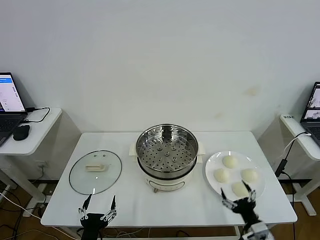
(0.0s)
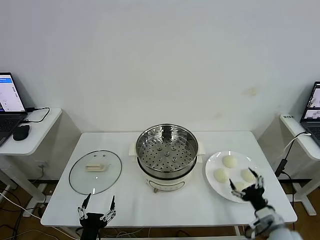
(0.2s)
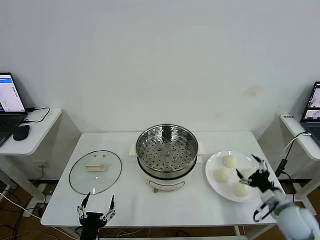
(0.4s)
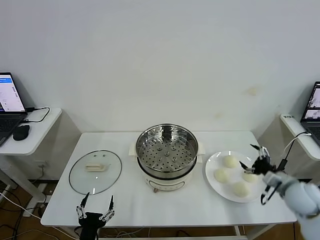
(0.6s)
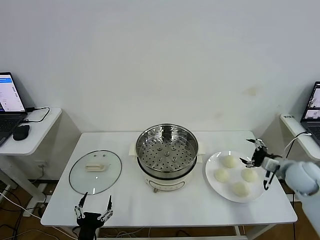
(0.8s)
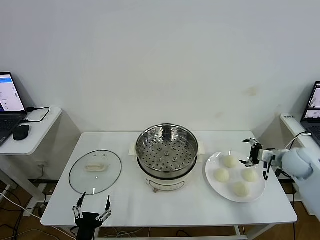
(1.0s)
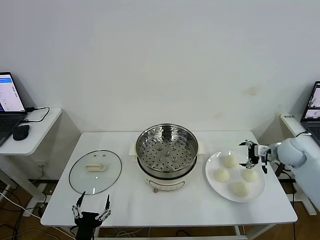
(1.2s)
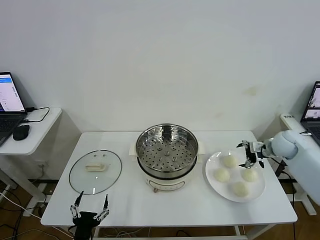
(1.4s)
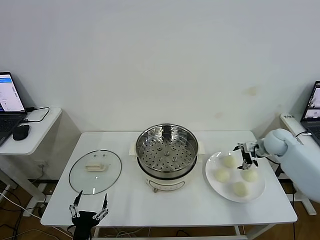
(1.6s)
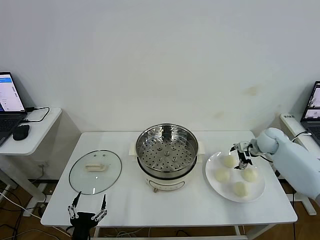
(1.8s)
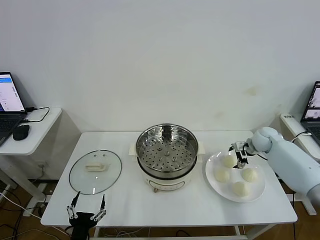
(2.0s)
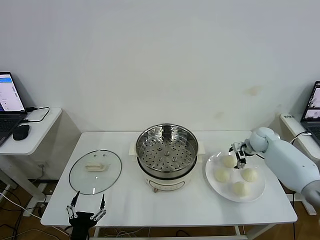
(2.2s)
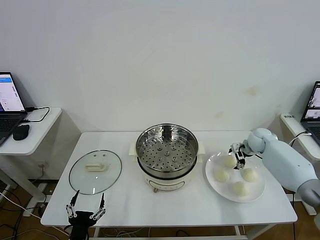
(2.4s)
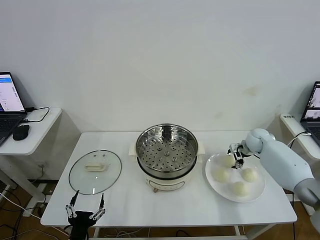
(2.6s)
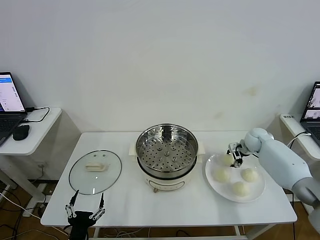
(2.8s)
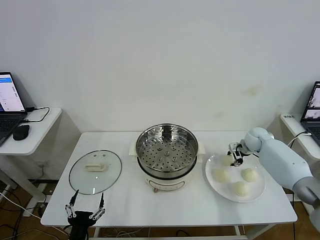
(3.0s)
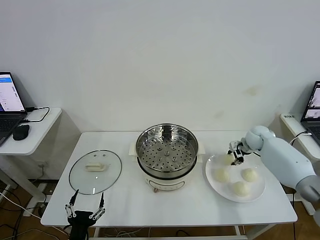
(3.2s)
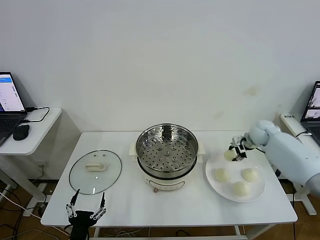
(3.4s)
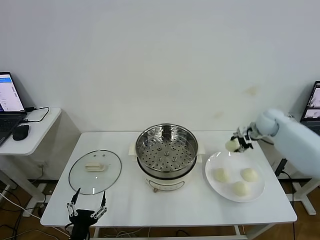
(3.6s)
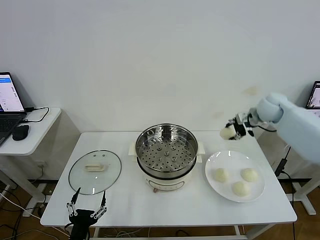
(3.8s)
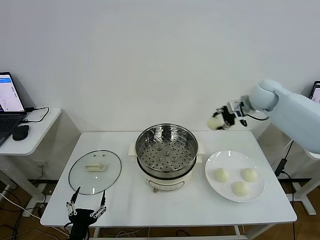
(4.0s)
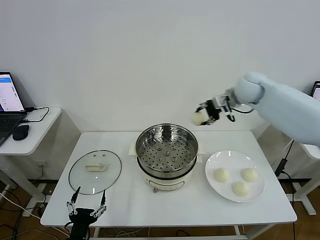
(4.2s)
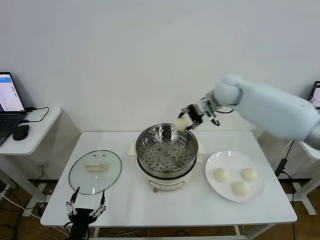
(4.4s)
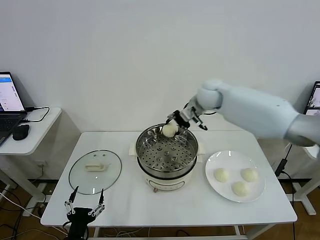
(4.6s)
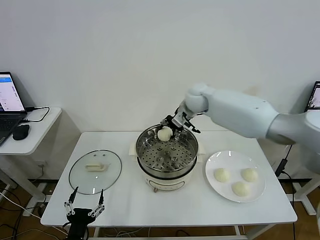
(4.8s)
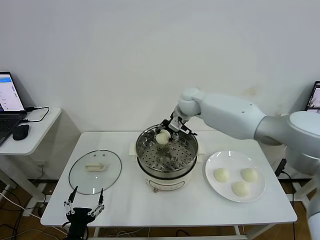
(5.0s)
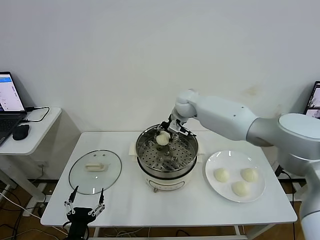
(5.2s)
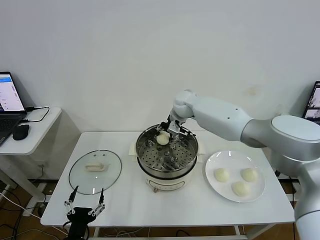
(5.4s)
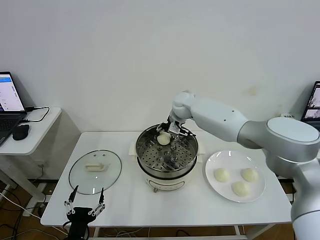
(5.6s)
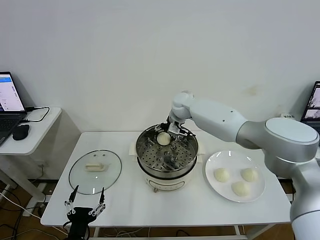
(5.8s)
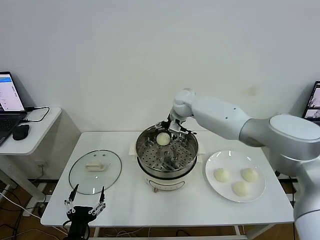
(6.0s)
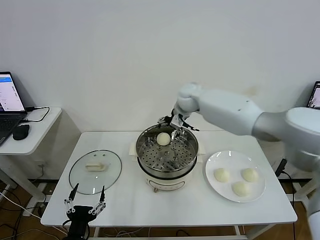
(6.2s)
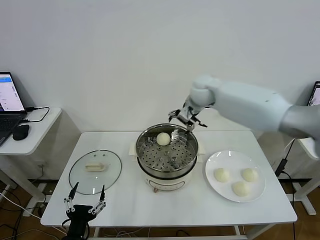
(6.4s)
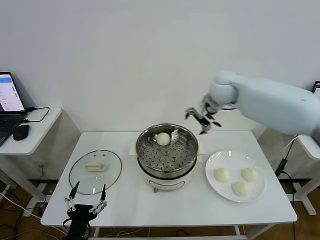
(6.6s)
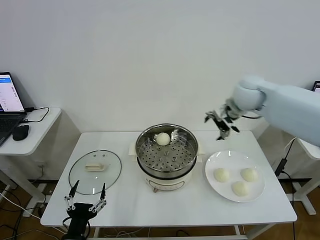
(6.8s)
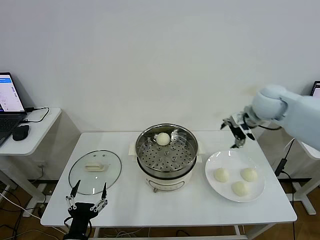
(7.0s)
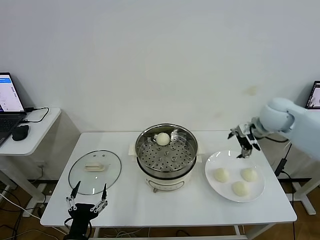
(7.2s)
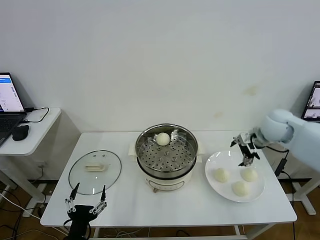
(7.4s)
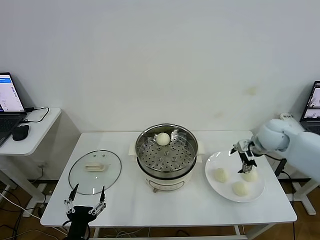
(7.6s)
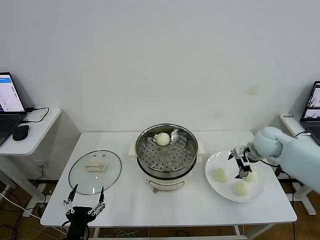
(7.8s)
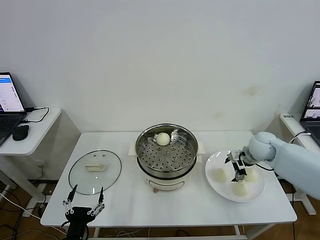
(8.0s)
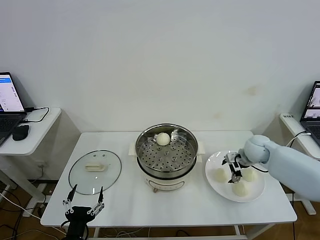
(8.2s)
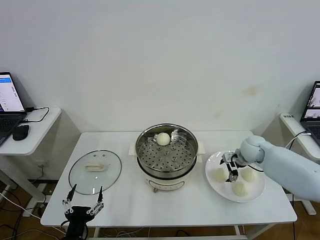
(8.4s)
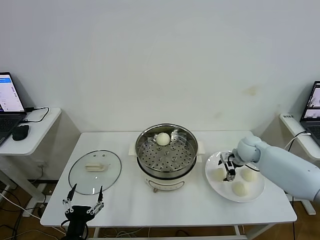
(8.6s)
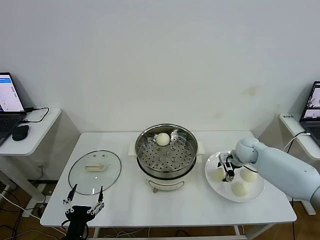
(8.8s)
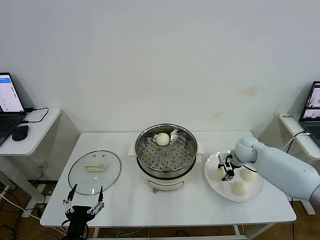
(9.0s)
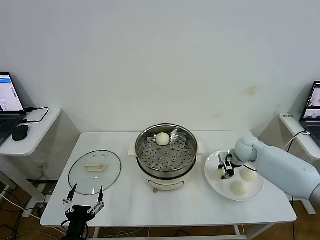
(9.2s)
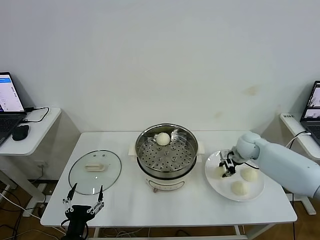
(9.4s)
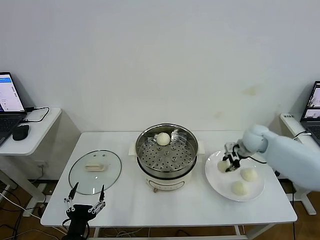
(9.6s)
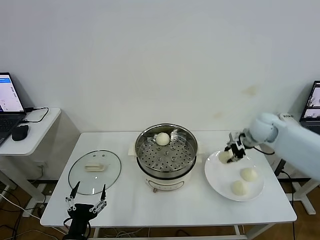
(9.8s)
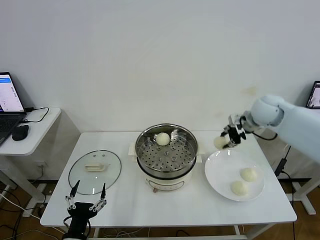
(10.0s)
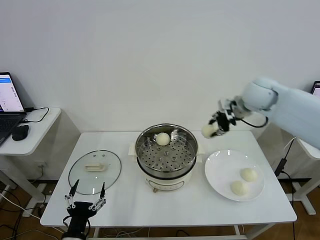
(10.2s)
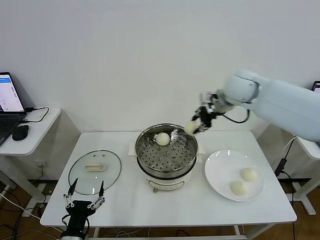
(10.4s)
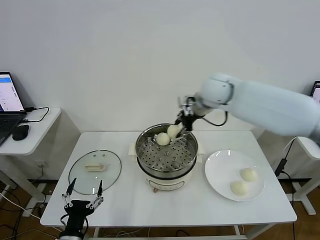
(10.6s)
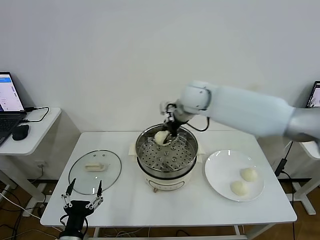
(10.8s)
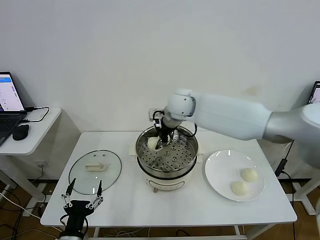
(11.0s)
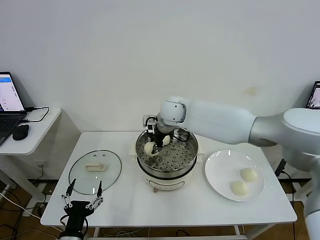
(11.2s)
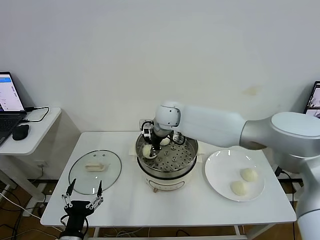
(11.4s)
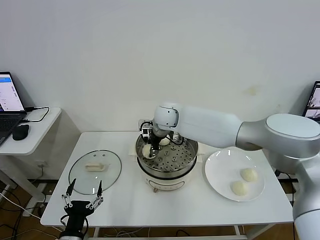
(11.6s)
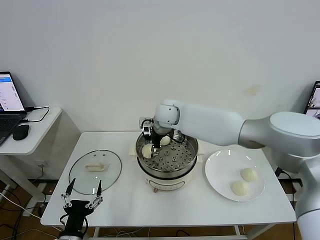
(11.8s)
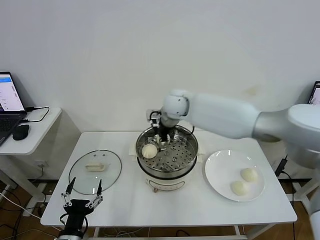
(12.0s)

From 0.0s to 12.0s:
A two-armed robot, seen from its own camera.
Step, from 0.0s to 3.0s: Grasp the baozi in the plate with right gripper.
Step, from 3.2s to 6.0s: Place the baozi on the steamer with right gripper.
Step, from 6.2s to 9.0s: Grasp the baozi in the plate with right gripper.
Step, from 9.2s to 11.8s: Place the baozi on the steamer with right gripper.
From 1.6s to 3.0s: The right gripper changes place by approximately 5 cm, and closes up.
From 3.0s to 4.4s: The right gripper shifts some 30 cm upward and to the left.
From 4.4s to 6.0s: The right gripper moves to the left and downward, about 10 cm, and opens up.
From 6.0s to 7.6s: The right gripper shifts roughly 30 cm to the right and backward.
From 7.6s to 9.0s: The right gripper is displaced downward by approximately 10 cm, and closes.
From 9.0s to 10.4s: The right gripper moves upward and to the left, some 30 cm.
From 10.4s to 12.0s: The right gripper travels to the left and downward by some 15 cm, and opens up.

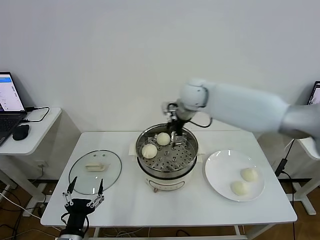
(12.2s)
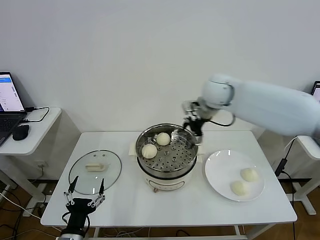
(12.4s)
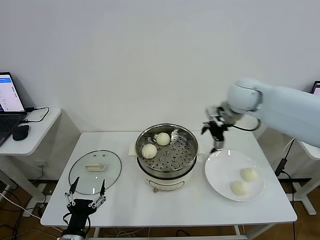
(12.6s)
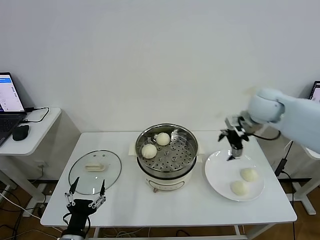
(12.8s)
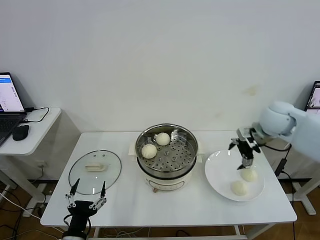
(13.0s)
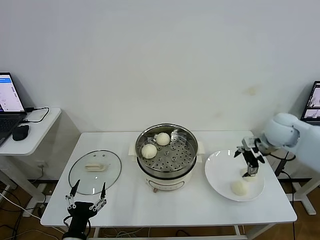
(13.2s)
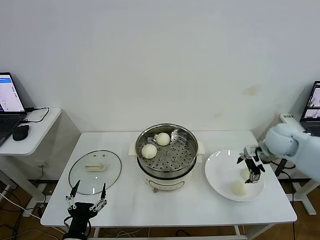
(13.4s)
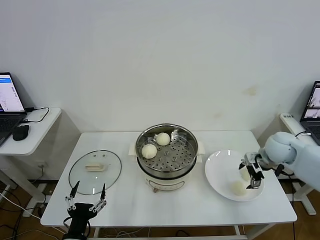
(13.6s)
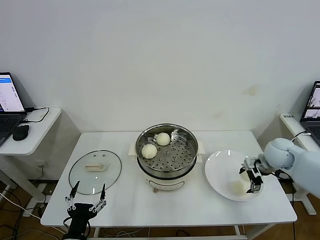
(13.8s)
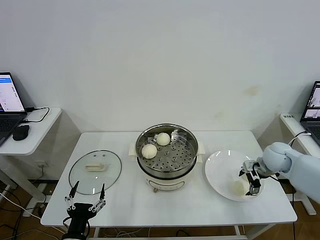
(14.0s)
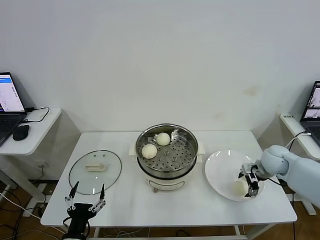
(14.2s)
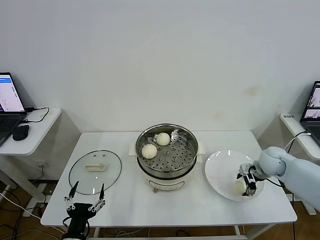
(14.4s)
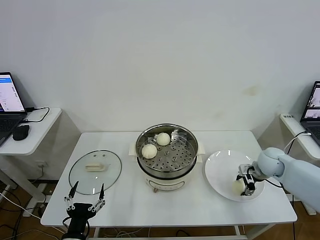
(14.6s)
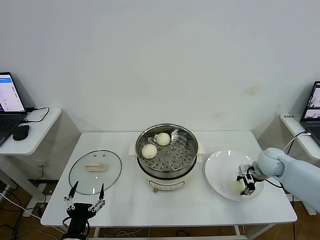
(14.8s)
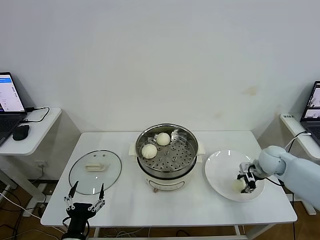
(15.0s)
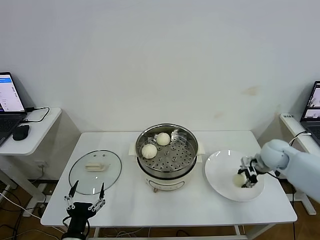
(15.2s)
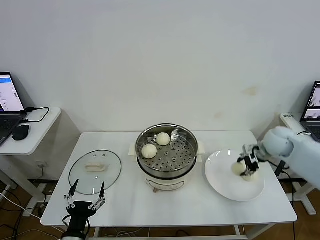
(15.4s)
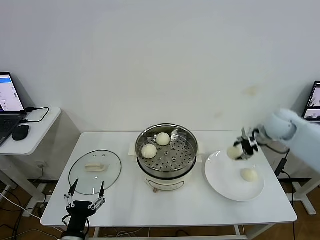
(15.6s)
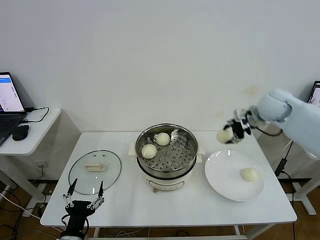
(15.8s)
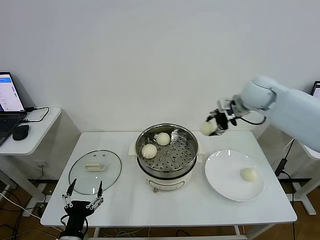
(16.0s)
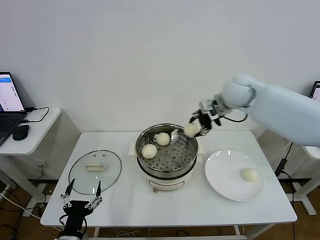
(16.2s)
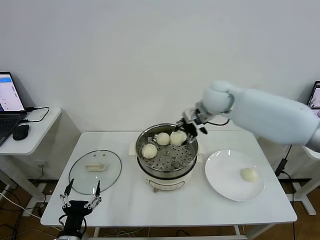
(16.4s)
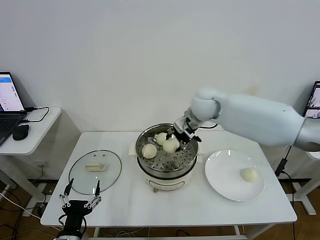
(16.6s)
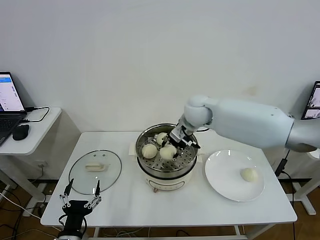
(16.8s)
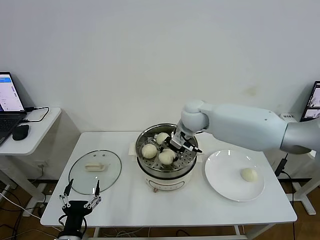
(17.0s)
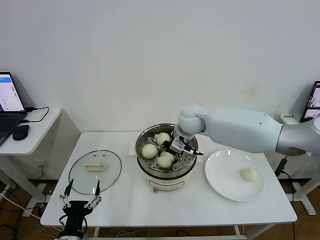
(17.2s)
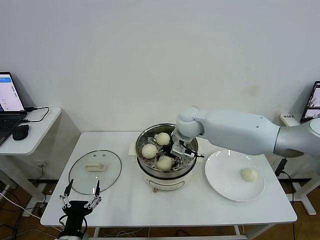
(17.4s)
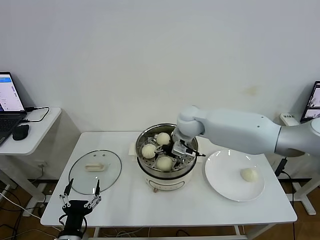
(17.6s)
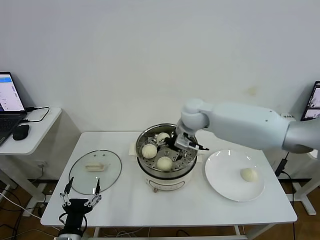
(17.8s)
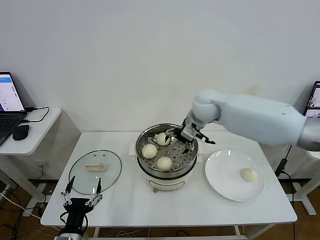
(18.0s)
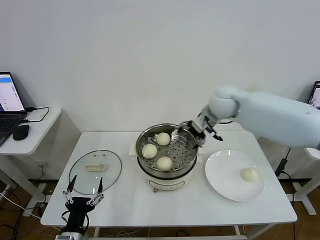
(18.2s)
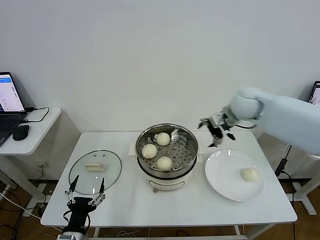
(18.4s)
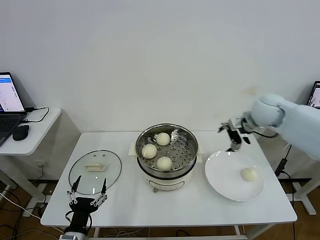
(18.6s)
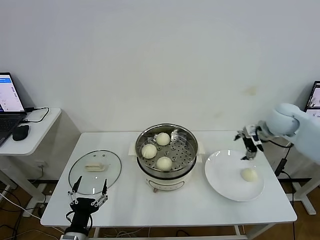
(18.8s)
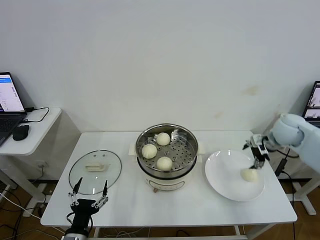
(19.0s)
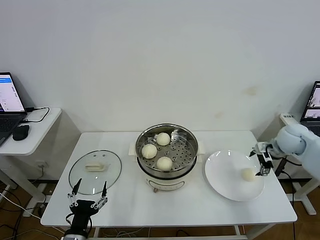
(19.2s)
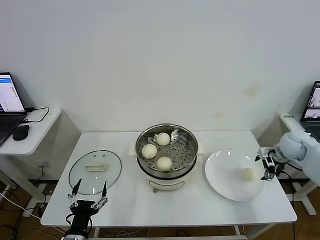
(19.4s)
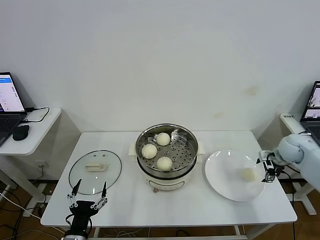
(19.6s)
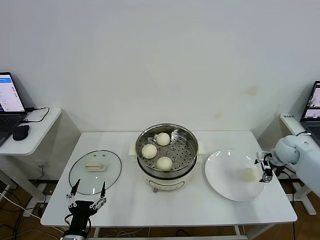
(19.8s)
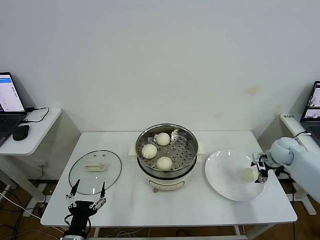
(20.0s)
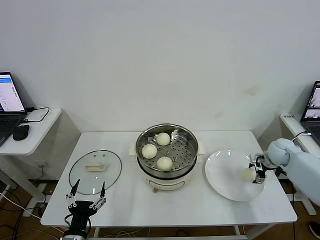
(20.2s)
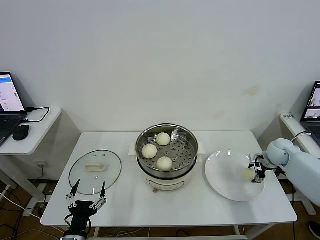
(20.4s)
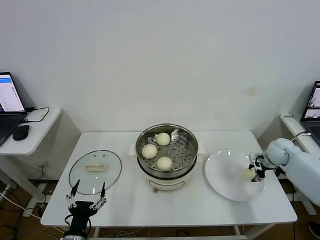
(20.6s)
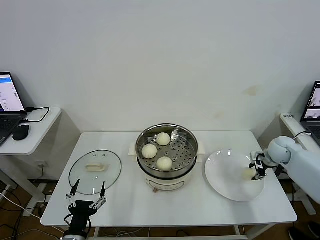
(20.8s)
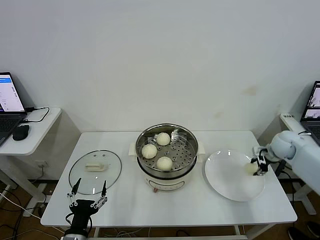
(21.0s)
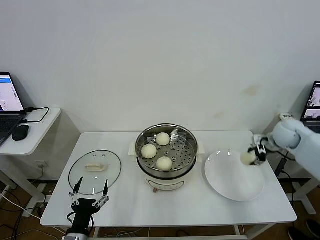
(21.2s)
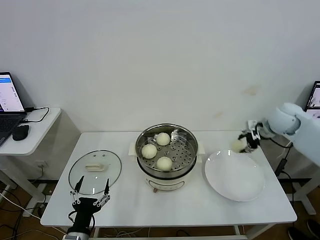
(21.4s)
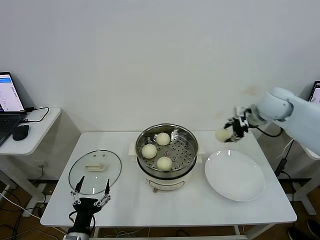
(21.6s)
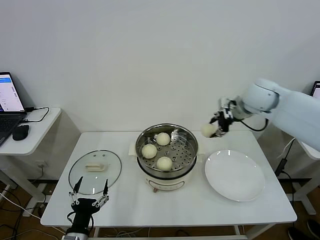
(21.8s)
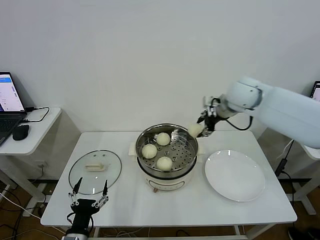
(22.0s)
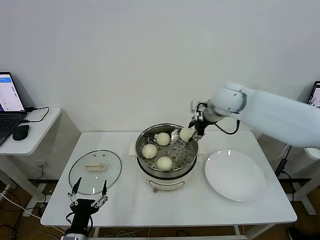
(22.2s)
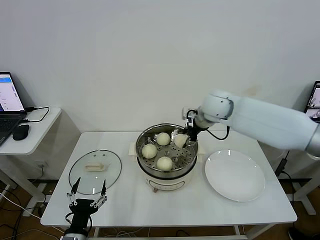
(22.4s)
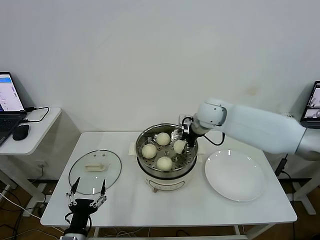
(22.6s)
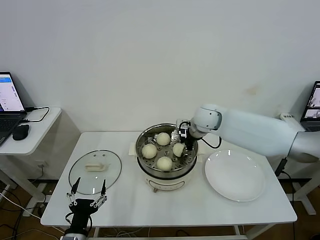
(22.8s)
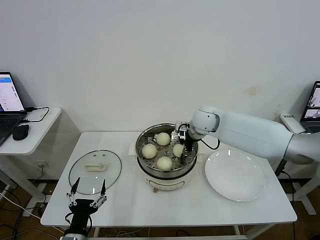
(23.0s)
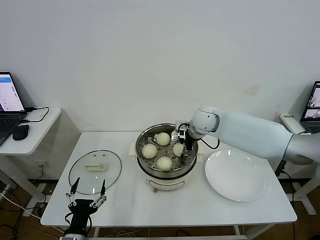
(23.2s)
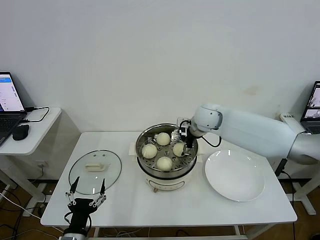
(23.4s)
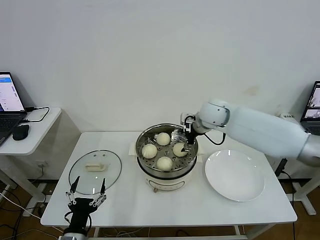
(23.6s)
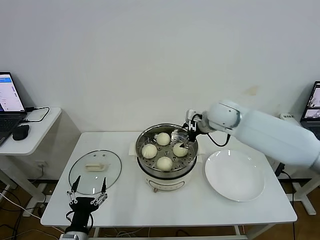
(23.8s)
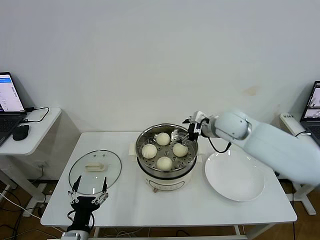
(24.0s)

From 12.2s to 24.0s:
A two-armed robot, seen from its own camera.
Step, from 12.2s to 14.8s: Grasp the baozi in the plate with right gripper.
Step, from 15.0s to 17.8s: Place the baozi on the steamer with right gripper.
Step, from 18.0s to 20.4s: Grasp the baozi in the plate with right gripper.
Step, from 20.6s to 23.6s: Place the baozi on the steamer with right gripper.
From 12.2s to 13.6s: The right gripper shifts approximately 30 cm to the right and downward.
From 13.6s to 15.2s: The right gripper closes its fingers.
From 15.2s to 16.6s: The right gripper heads to the left and upward, covering about 30 cm.
From 16.6s to 18.2s: The right gripper moves to the right, approximately 10 cm, and opens its fingers.
From 18.2s to 19.6s: The right gripper shifts approximately 30 cm to the right and downward.
From 19.6s to 21.0s: The right gripper closes its fingers.
From 21.0s to 22.6s: The right gripper heads to the left, covering some 30 cm.
From 22.6s to 24.0s: The right gripper goes some 10 cm backward and to the right, and opens up.
